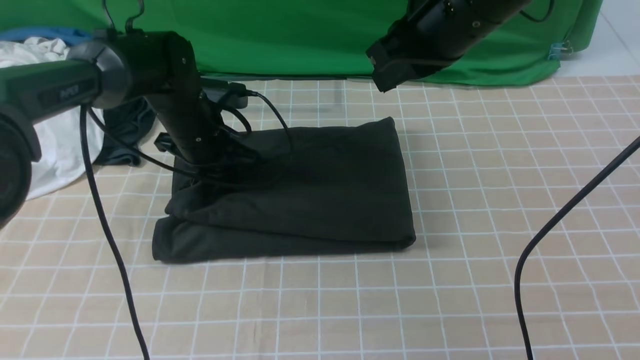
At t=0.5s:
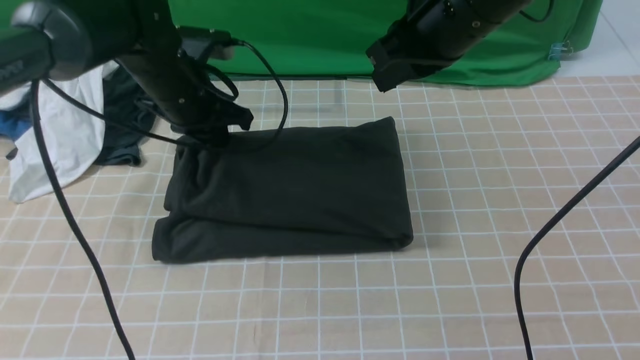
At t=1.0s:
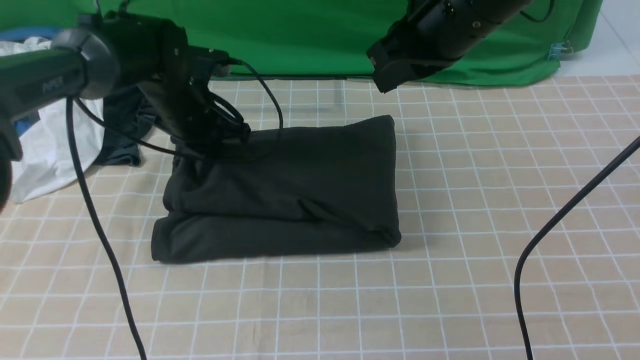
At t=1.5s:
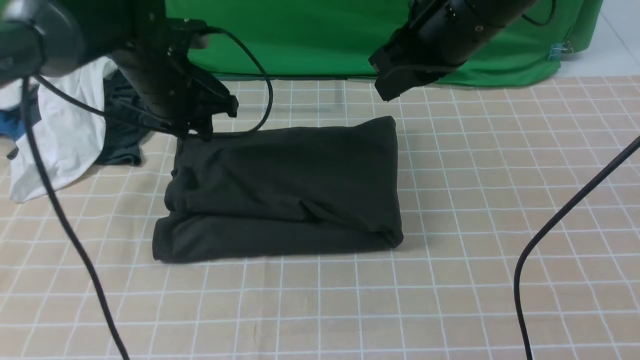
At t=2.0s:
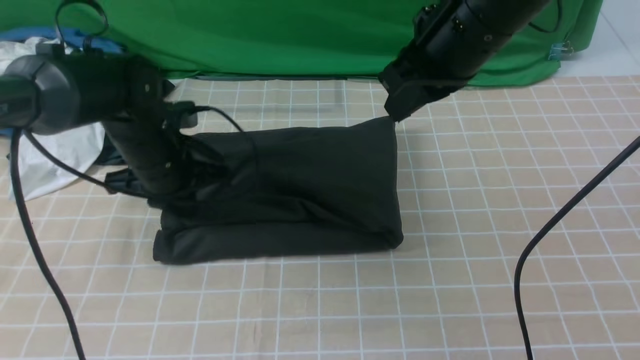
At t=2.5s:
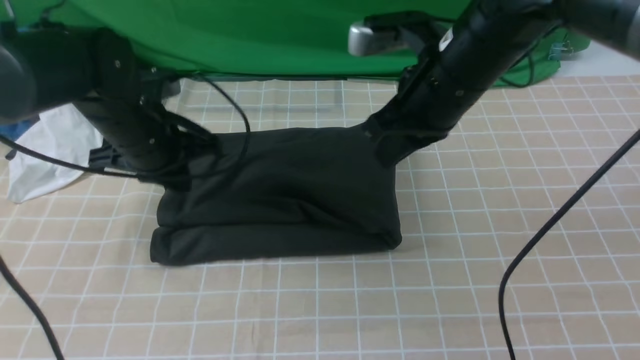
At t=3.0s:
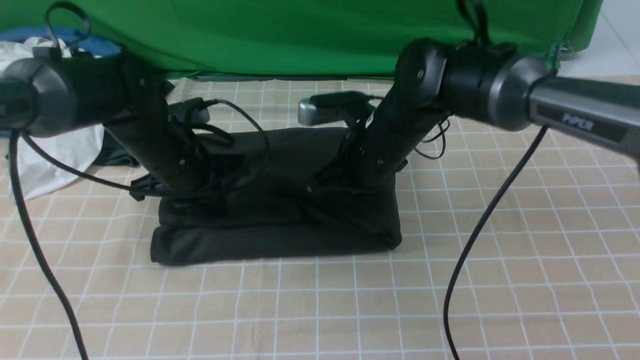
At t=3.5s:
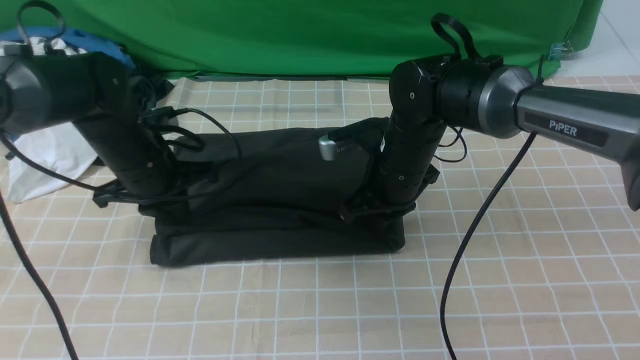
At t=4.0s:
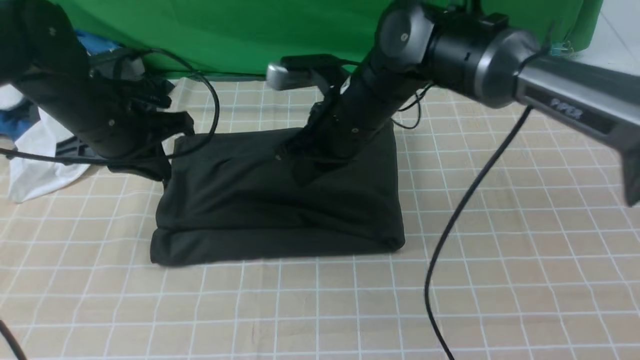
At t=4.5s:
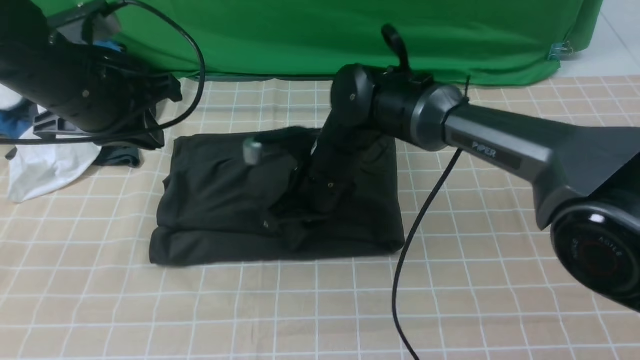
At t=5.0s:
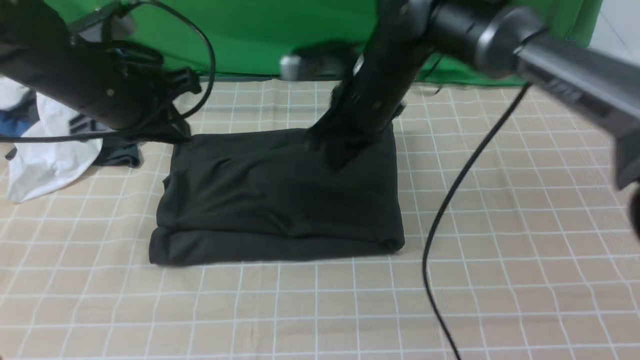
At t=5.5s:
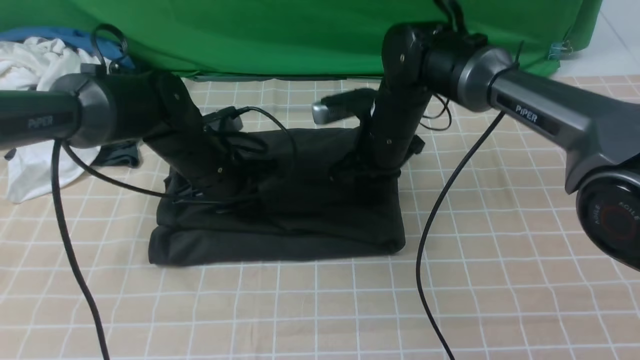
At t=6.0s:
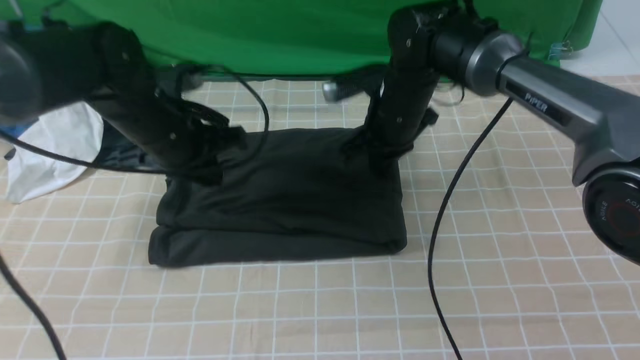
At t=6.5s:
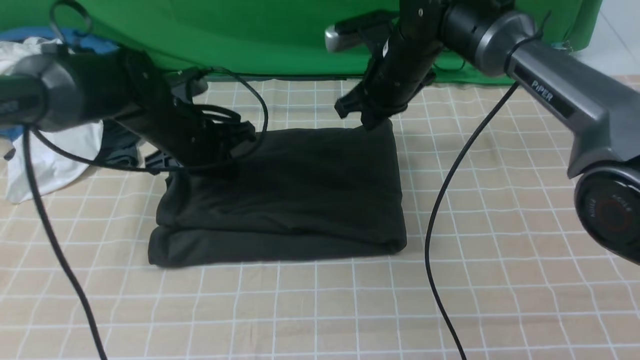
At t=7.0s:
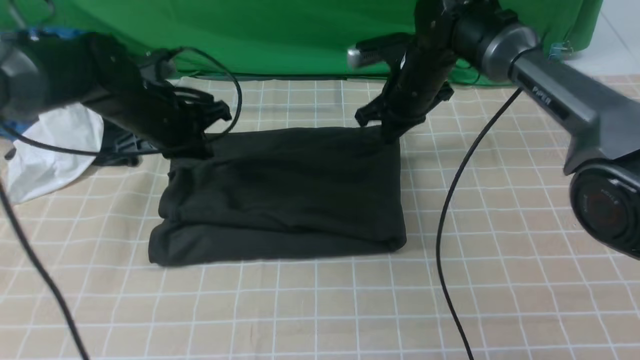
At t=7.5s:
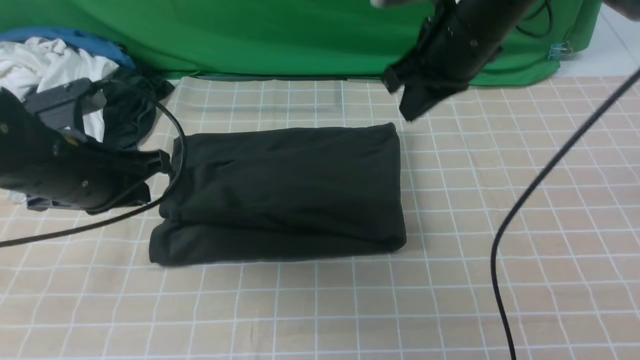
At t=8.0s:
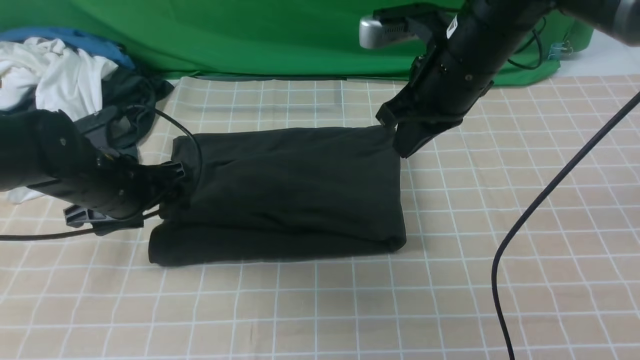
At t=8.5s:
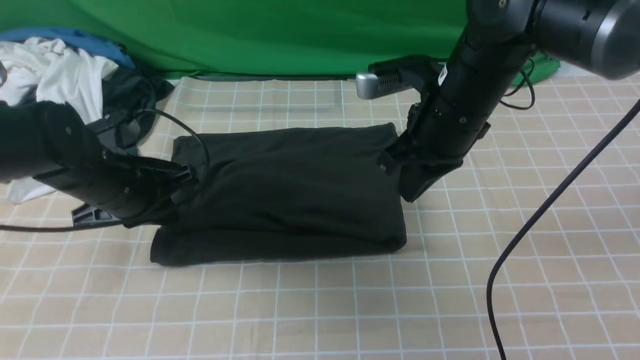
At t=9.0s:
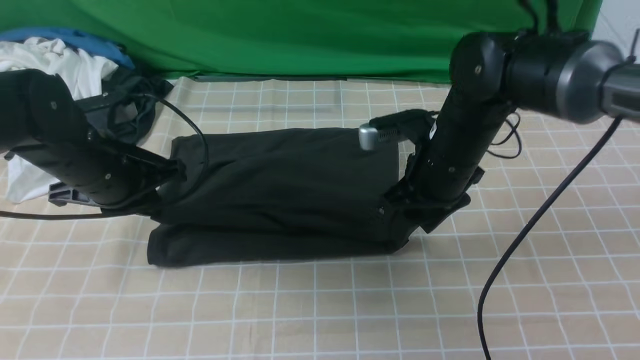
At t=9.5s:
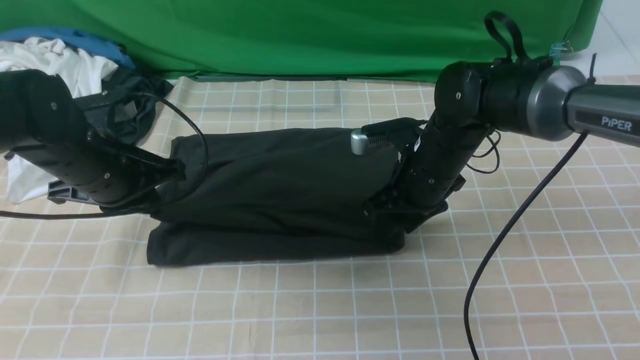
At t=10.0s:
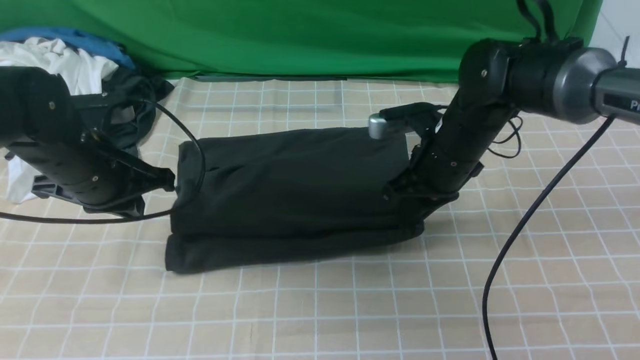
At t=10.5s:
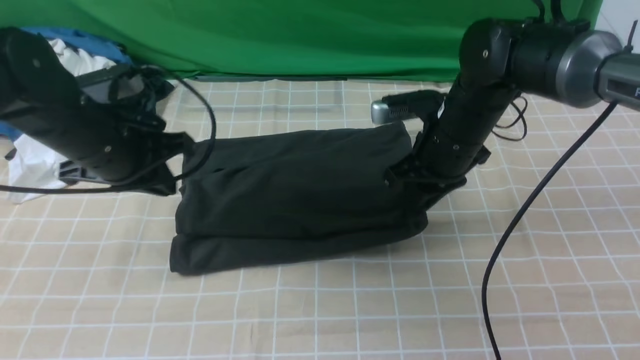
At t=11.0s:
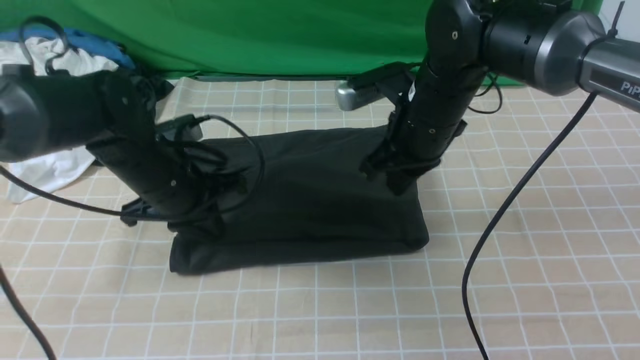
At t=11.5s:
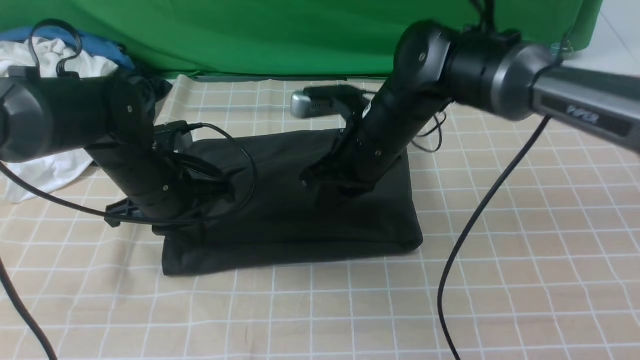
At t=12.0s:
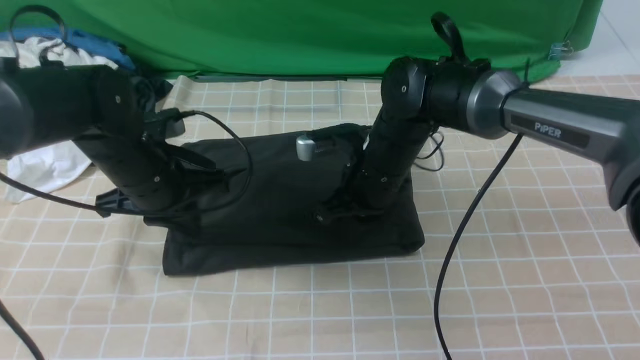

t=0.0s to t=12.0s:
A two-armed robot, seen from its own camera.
t=0.0s to t=2.0s: The left gripper is displaced backward by some 5 cm.
t=2.0s to t=4.0s: The left gripper travels upward by some 5 cm. Meanwhile the right gripper goes roughly 15 cm downward and to the left.
t=4.0s to t=6.0s: The right gripper travels forward and to the right by approximately 5 cm, while the left gripper swings up and down, roughly 15 cm each way, with 2 reversals.
t=6.0s to t=8.0s: The right gripper shifts approximately 10 cm upward and backward. Meanwhile the left gripper goes some 10 cm to the left and backward, and opens its fingers.
t=8.0s to t=10.0s: The right gripper travels downward by some 10 cm, and opens, then closes once more. Meanwhile the left gripper closes its fingers.
t=10.0s to t=12.0s: The left gripper shifts by about 5 cm. The right gripper travels to the left by some 5 cm.

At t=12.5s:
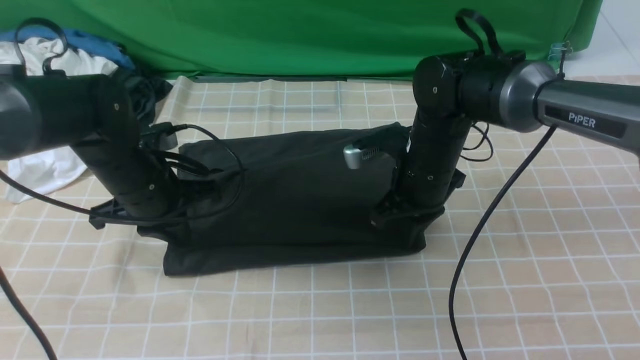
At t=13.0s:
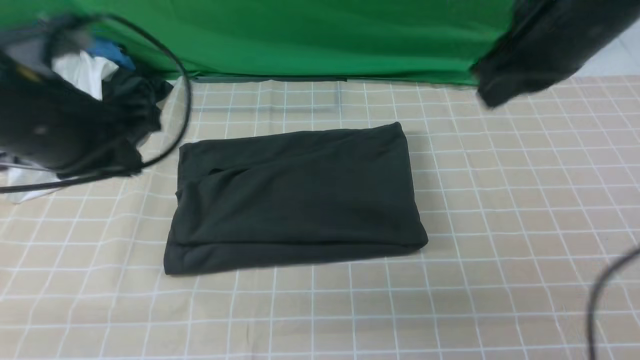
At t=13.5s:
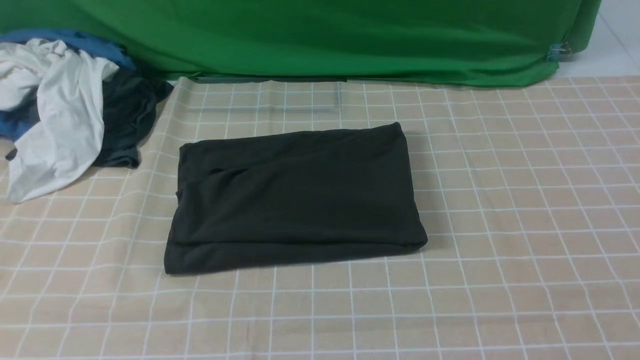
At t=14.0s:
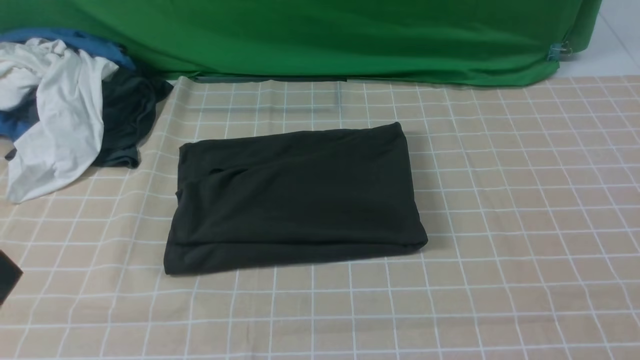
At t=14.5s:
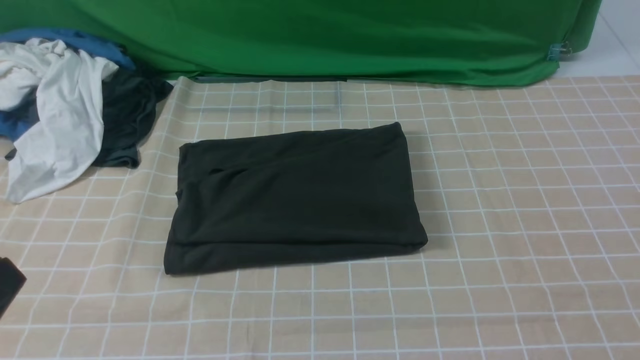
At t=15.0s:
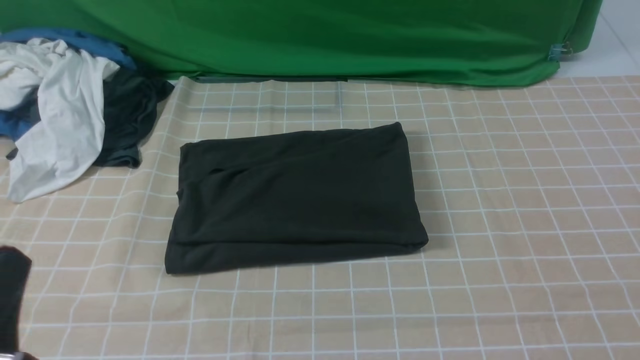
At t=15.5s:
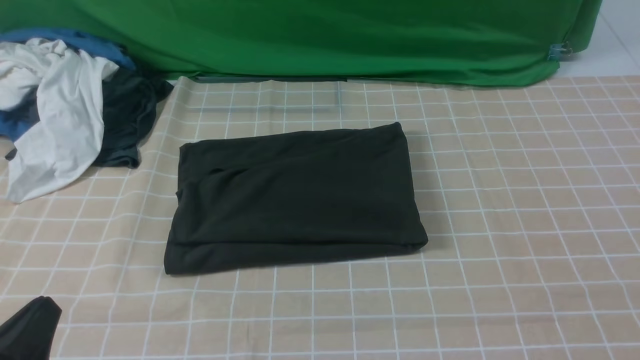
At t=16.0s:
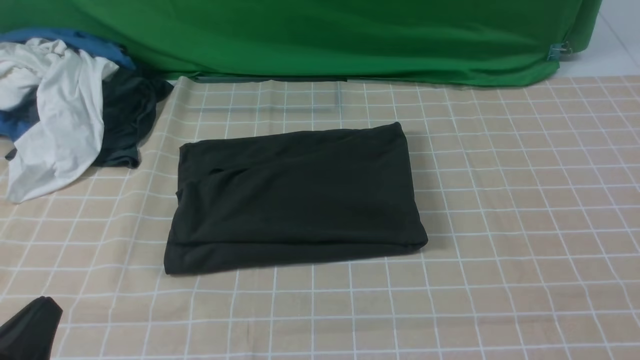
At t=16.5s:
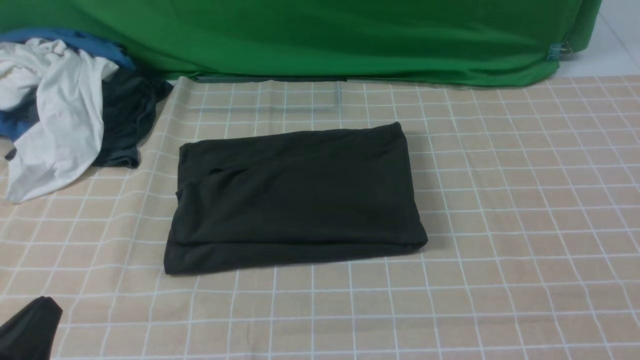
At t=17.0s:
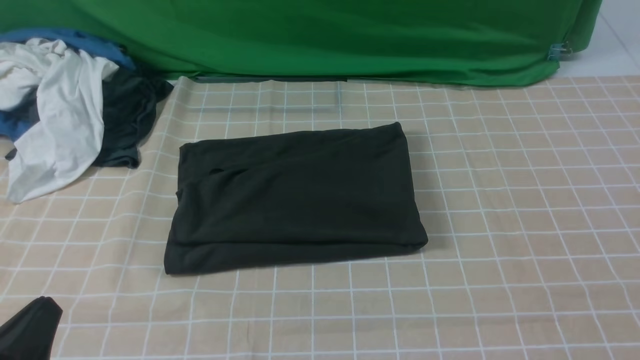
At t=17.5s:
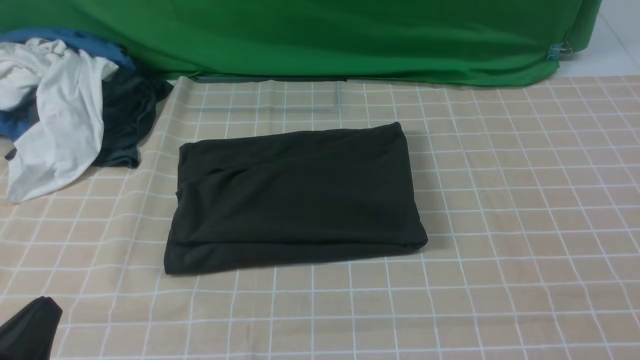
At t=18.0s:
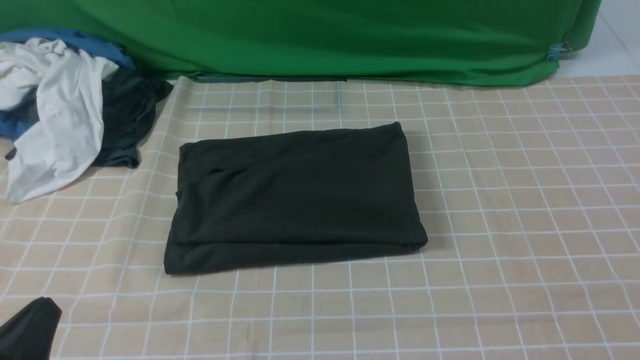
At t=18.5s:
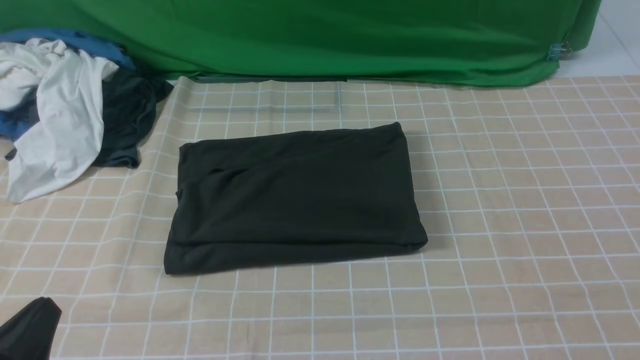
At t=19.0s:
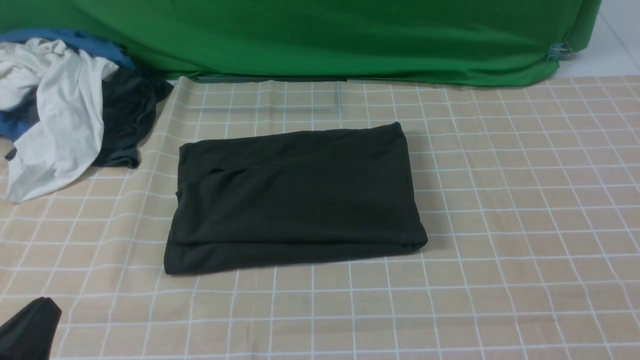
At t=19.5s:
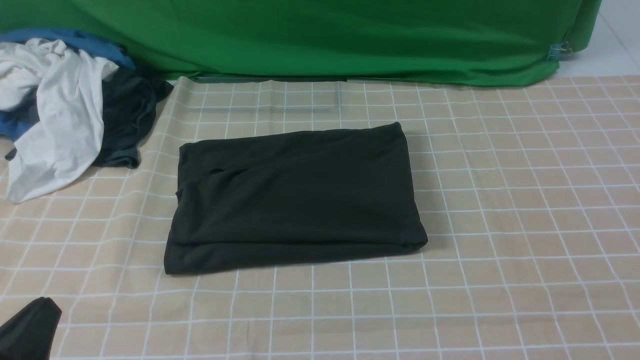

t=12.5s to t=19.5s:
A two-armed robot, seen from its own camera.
t=12.5s to t=14.5s: The left gripper goes roughly 30 cm backward. The right gripper heads backward, to the right and upward, covering approximately 40 cm.
t=14.5s to t=16.0s: The left gripper shifts roughly 10 cm downward.

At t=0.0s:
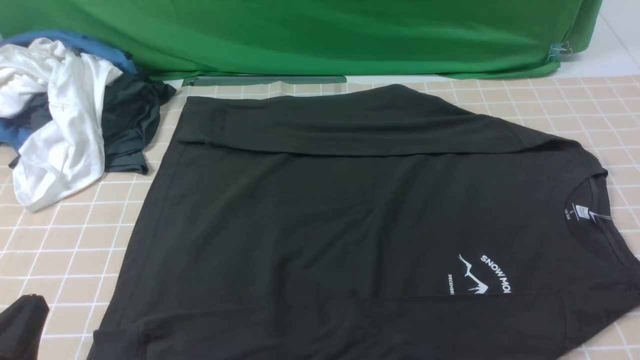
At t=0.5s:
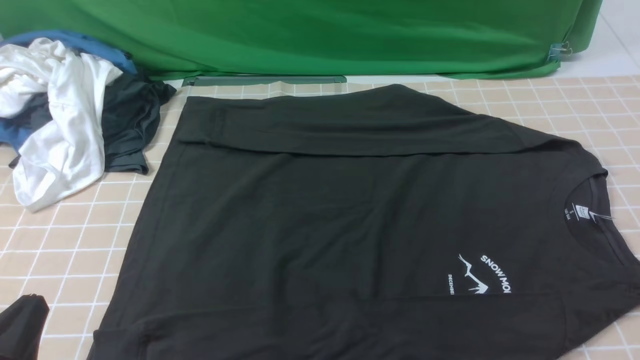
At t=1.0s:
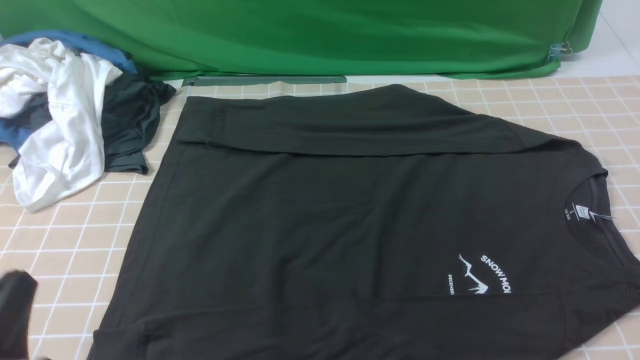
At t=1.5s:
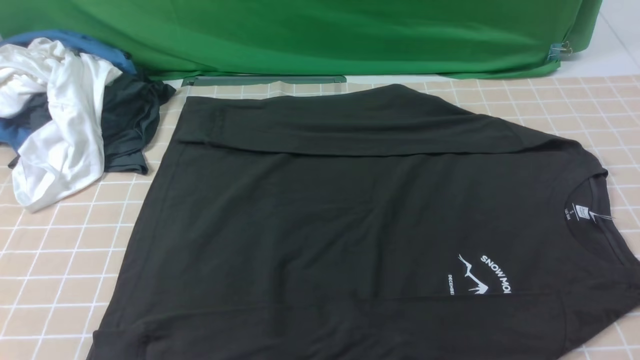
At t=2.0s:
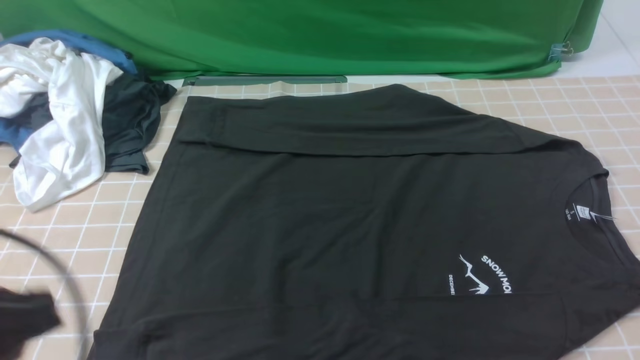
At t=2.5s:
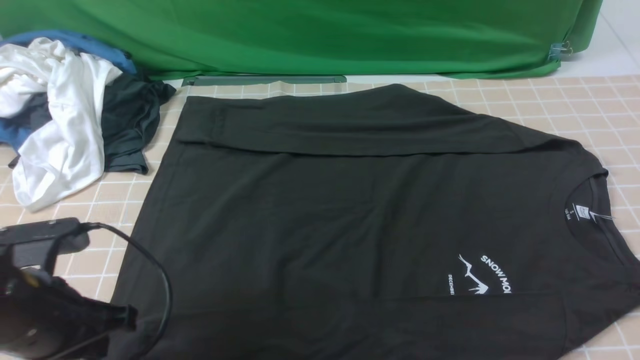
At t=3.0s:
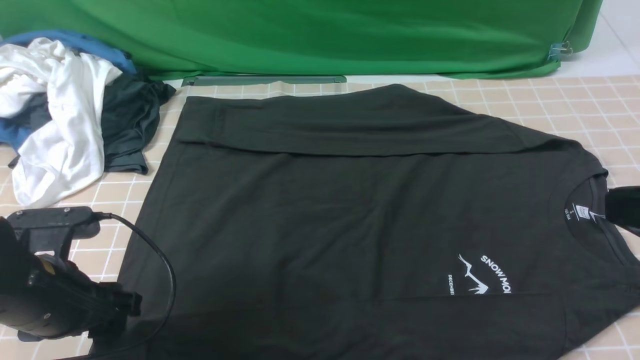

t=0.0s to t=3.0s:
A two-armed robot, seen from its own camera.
t=0.0s to t=1.5s: The left gripper is displaced upward by approximately 5 cm.
t=1.5s to t=3.0s: The left gripper heads forward and downward, covering some 15 cm, and opens its fingers. The right gripper shifts approximately 15 cm upward, to the left and forward, and closes up.
